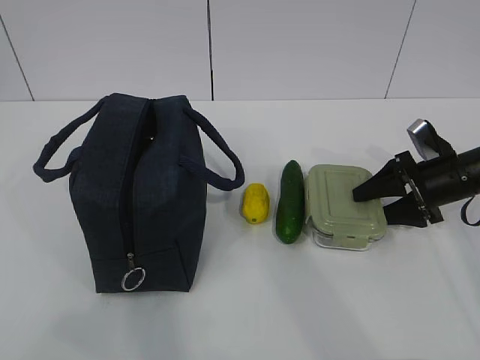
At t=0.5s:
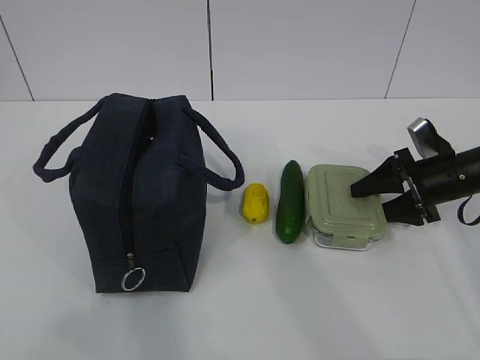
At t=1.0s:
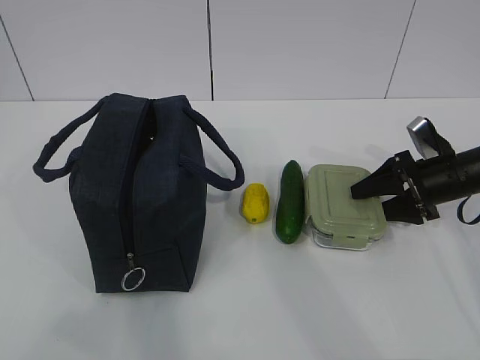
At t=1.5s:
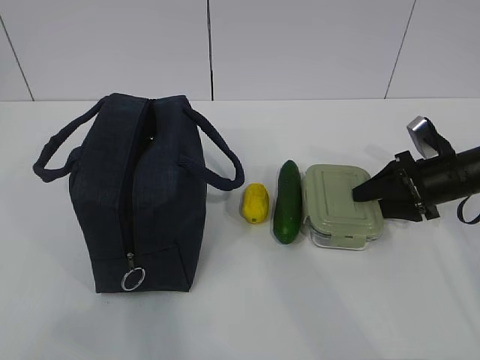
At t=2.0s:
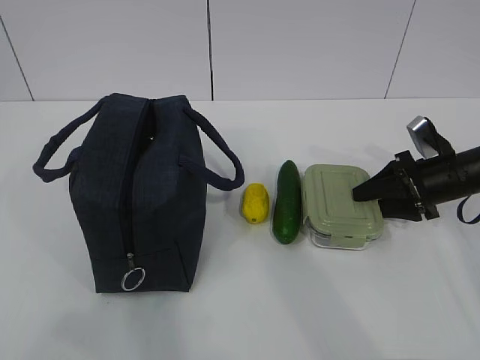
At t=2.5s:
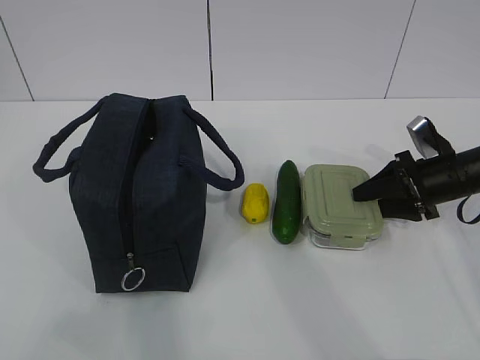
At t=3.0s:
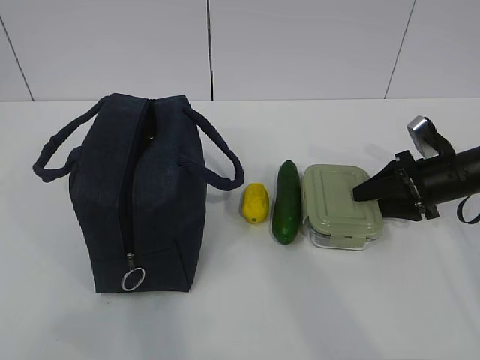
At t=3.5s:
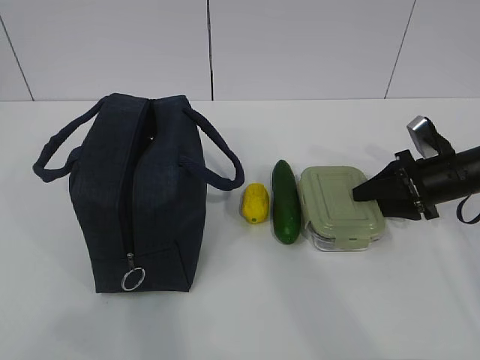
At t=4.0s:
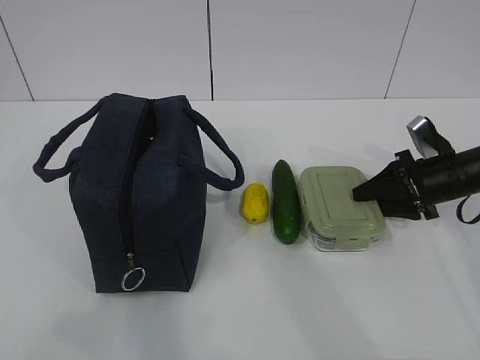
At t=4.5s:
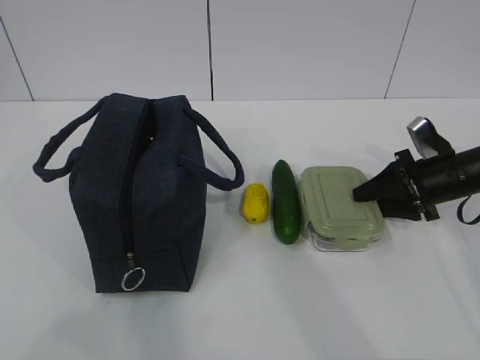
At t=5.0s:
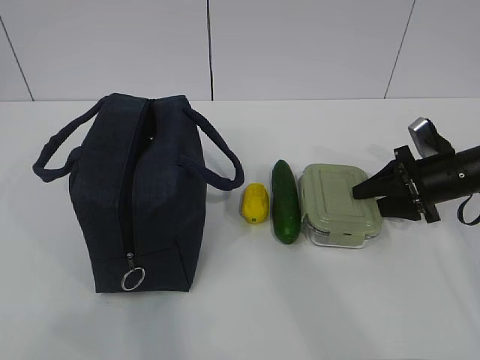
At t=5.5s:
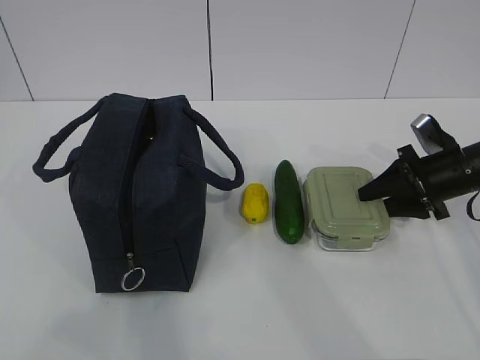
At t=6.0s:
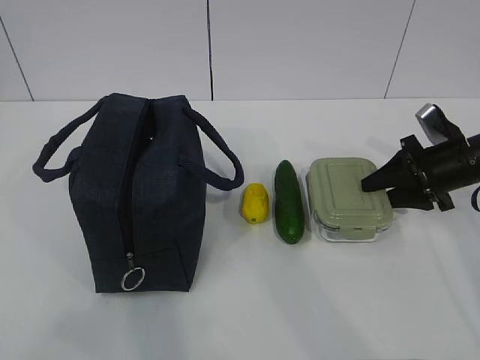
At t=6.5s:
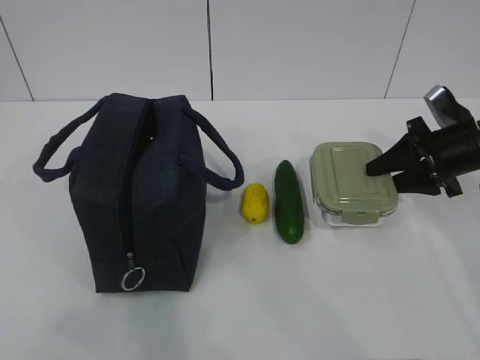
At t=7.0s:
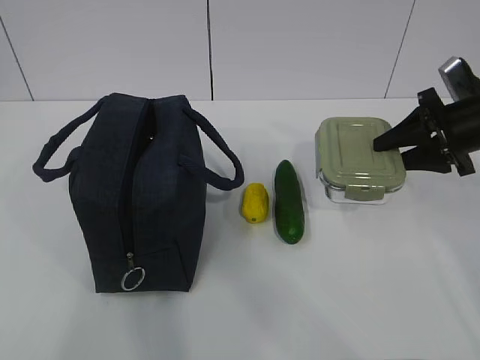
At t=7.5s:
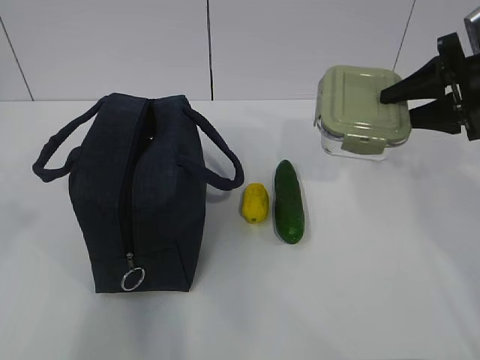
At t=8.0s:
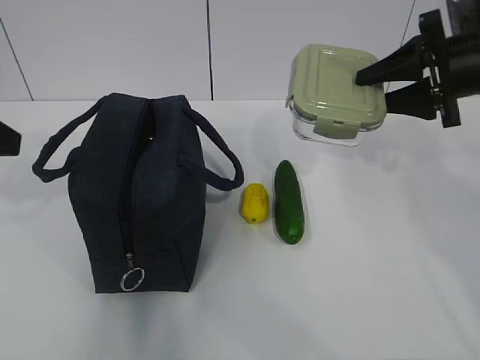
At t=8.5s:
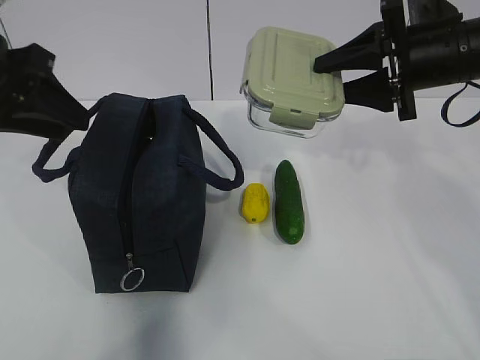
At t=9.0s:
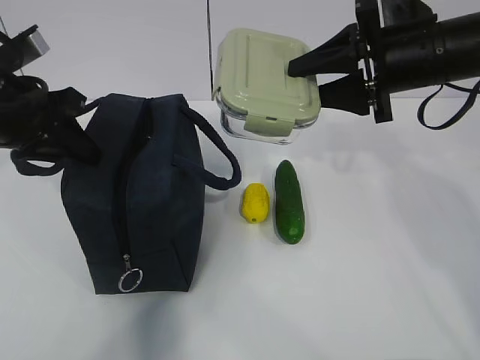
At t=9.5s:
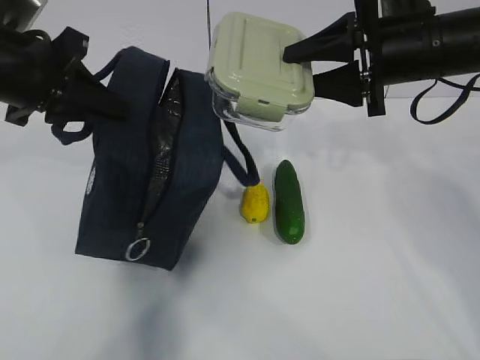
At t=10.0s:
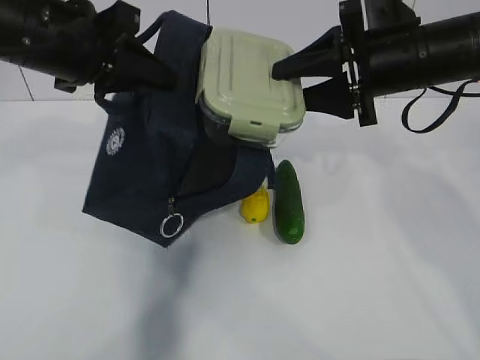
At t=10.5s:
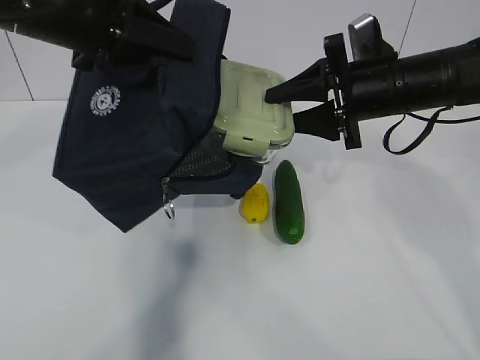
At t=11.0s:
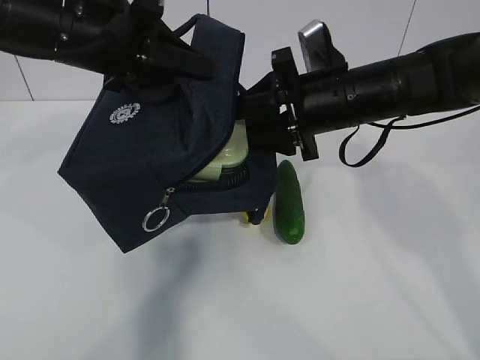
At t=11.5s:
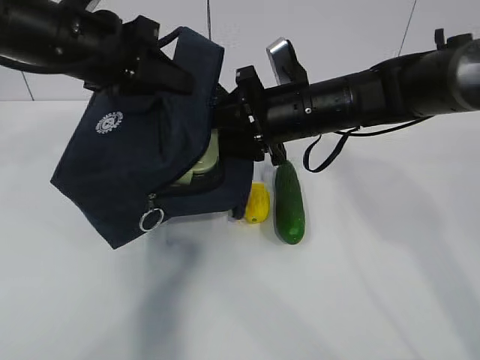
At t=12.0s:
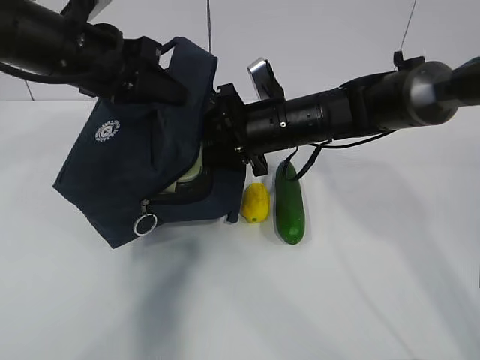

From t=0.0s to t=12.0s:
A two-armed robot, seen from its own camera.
Step, from t=0.0s to t=3.0s: Grab the lunch box with your right hand.
Step, from t=7.0s to t=9.5s: Place it into the bag with your right hand.
From t=0.0s to t=4.0s: The two grippers keep their place.
From t=4.0s to t=6.0s: There are only small adjustments of the grippers.
From t=6.0s to t=8.0s: The left gripper moves forward, approximately 25 cm. Meanwhile the right gripper shifts roughly 15 cm upward.
From t=8.0s to t=10.0s: The right gripper moves to the left, about 10 cm, while the left gripper moves to the right and forward, some 15 cm, and closes its fingers.
From t=10.0s to t=12.0s: The right gripper moves to the left and downward, about 15 cm.

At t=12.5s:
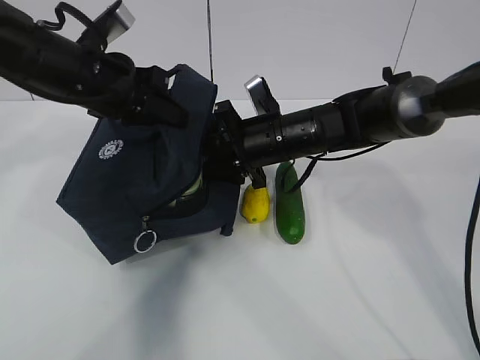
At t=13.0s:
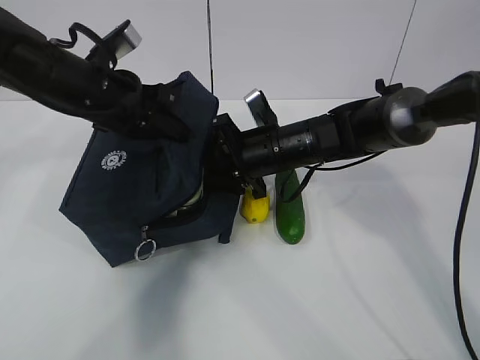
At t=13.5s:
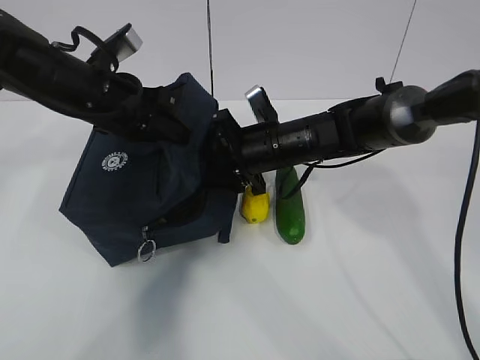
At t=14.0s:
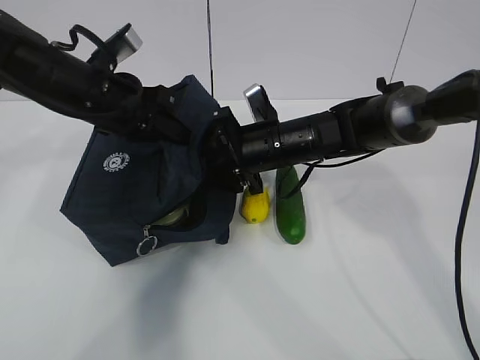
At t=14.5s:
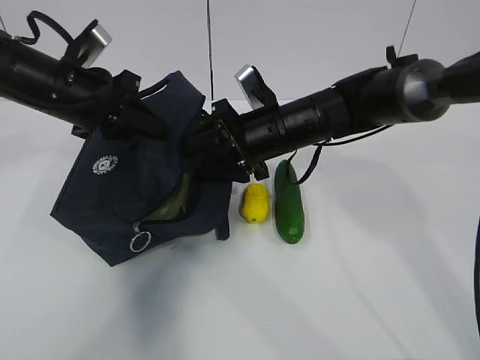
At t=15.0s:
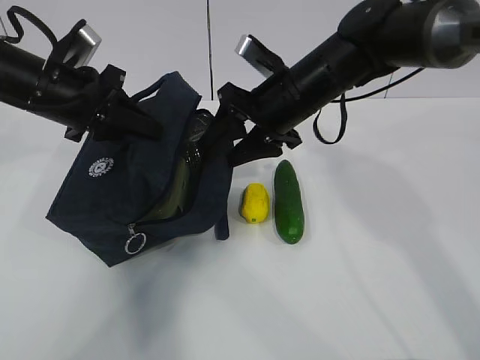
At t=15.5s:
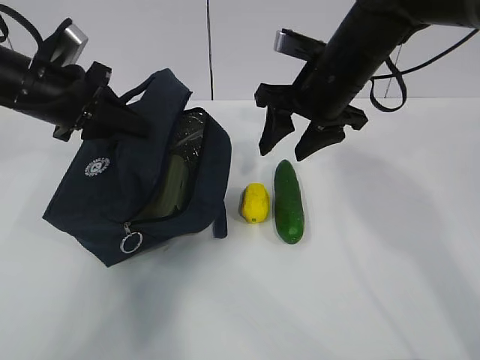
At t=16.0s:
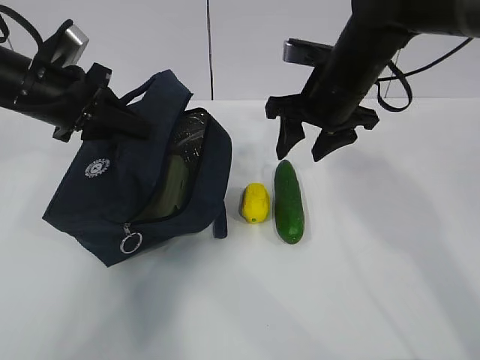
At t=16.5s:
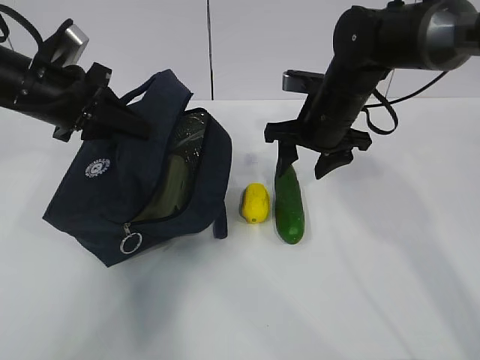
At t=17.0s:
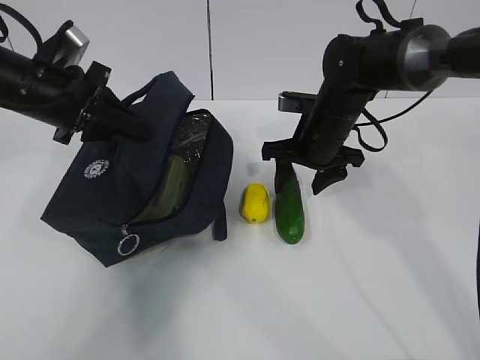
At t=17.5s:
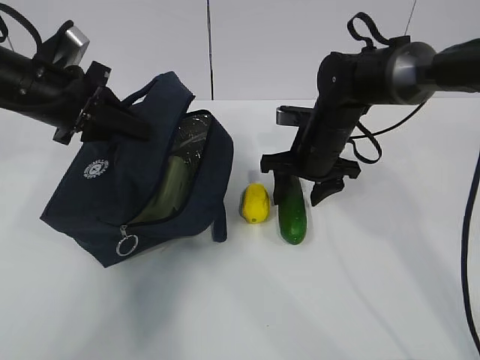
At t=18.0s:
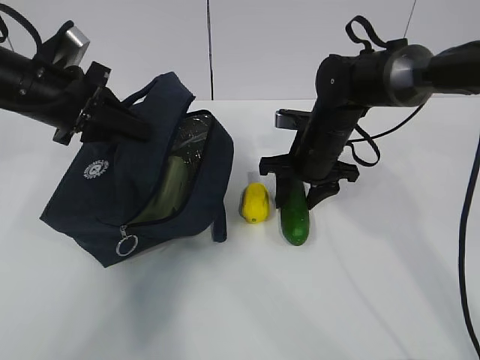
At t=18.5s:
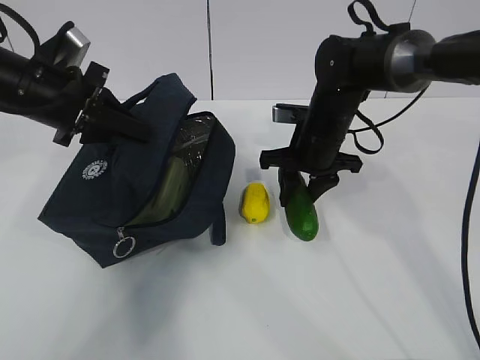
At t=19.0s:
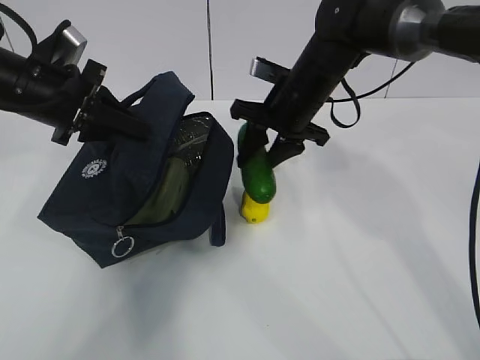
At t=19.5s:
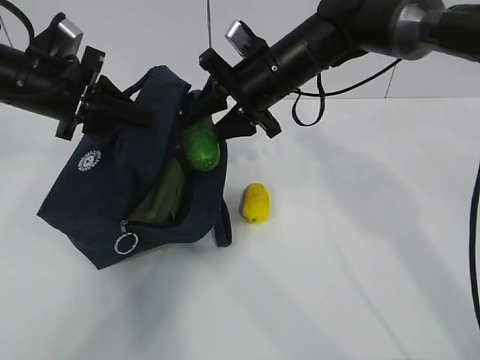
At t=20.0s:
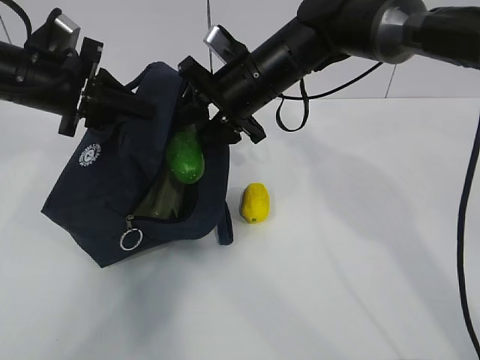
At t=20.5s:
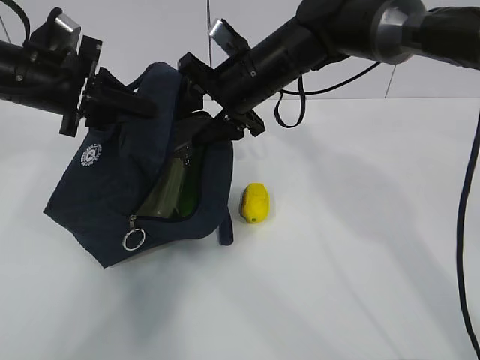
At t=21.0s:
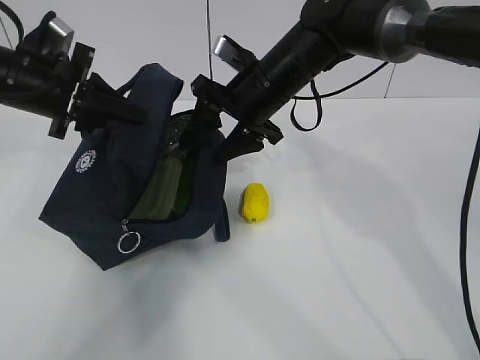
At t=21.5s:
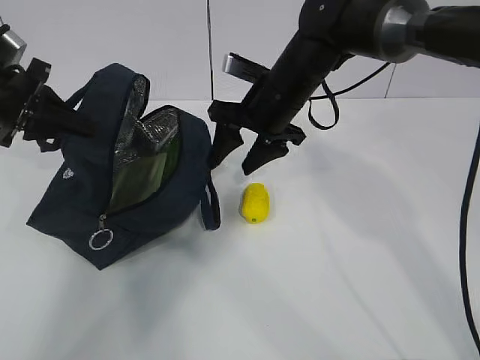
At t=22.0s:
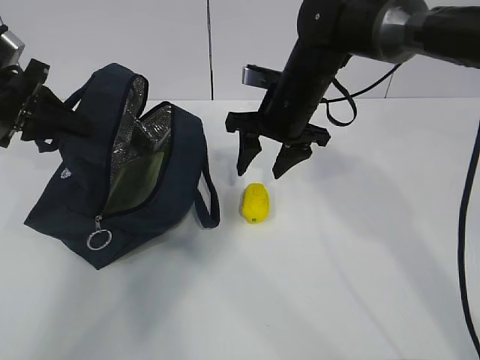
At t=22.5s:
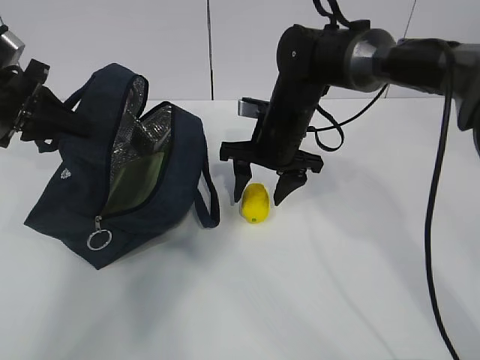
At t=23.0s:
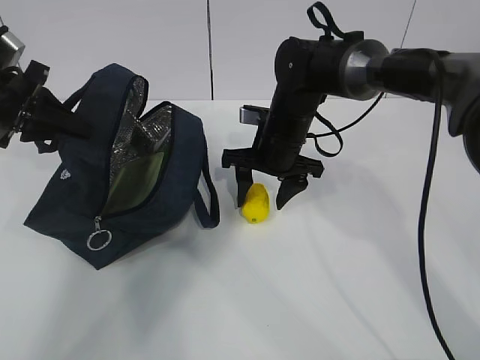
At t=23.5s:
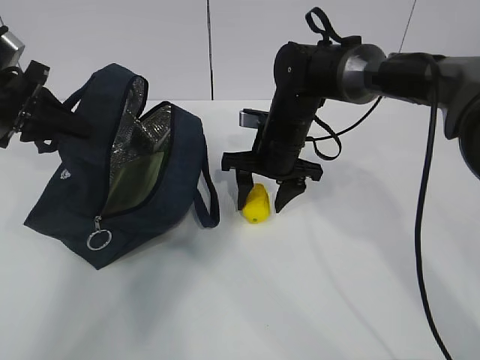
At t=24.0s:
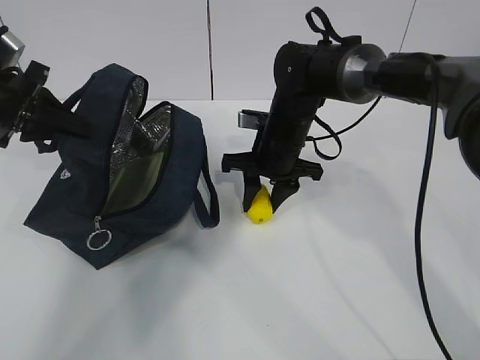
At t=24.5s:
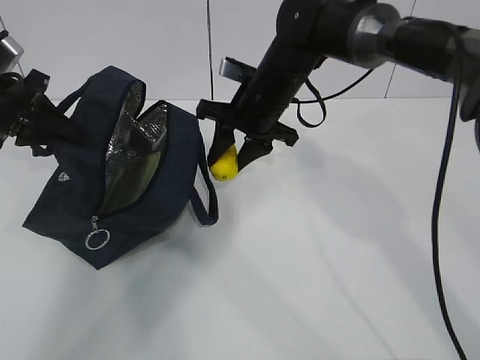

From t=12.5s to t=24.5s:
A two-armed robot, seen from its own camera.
Step, from t=14.0s to t=15.5s: Place it into the bag with your right hand.
Step, from t=16.0s to t=18.0s: Grab the lemon with your right hand.
Step, from t=21.0s to t=22.0s: Grab the lunch bag with your right hand.
From t=12.5s to t=14.5s: The grippers stay close to where they were, moving slightly.
From t=14.5s to t=16.5s: The right gripper shifts about 5 cm to the right, and moves about 10 cm upward and comes back.
From t=16.5s to t=18.5s: The right gripper closes.
From t=18.5s to t=20.5s: The right gripper is displaced upward and to the left by approximately 10 cm.
From t=20.5s to t=22.5s: The right gripper travels downward by roughly 5 cm. The left gripper travels to the left by about 5 cm.
From t=22.5s to t=24.5s: The right gripper closes.

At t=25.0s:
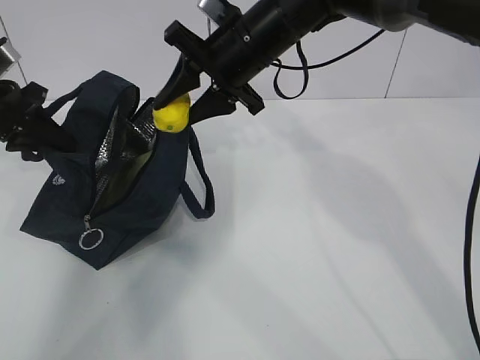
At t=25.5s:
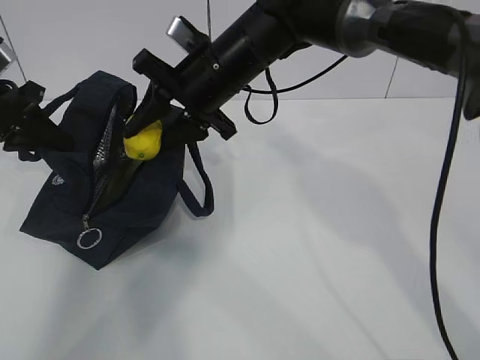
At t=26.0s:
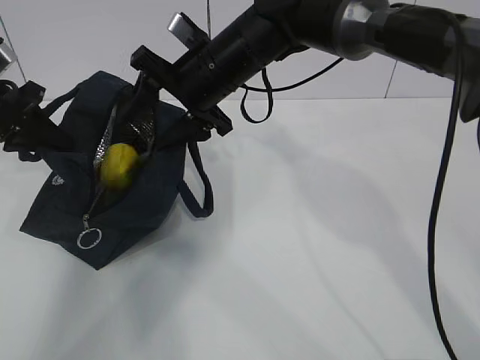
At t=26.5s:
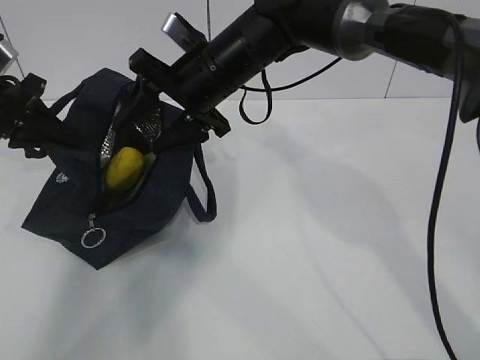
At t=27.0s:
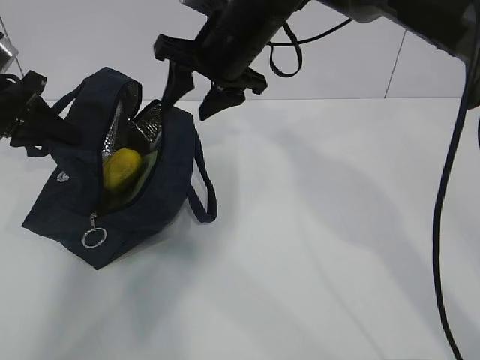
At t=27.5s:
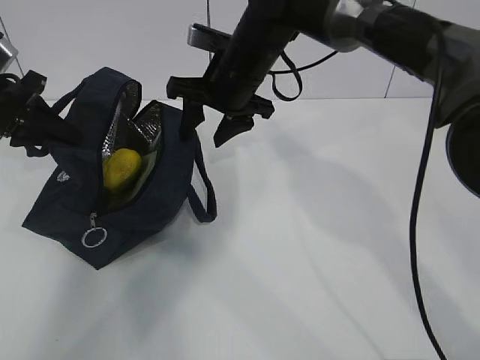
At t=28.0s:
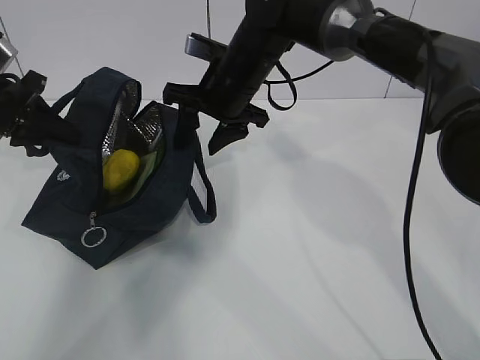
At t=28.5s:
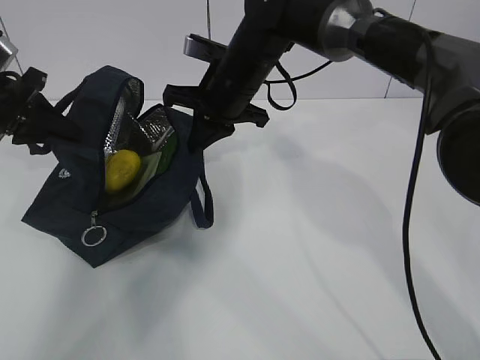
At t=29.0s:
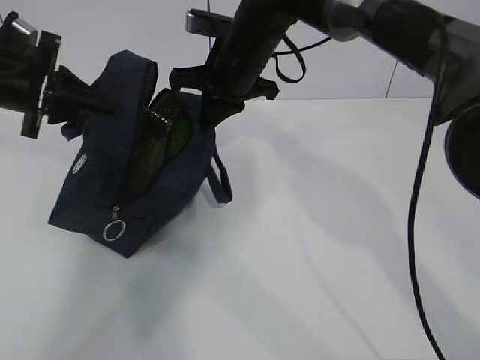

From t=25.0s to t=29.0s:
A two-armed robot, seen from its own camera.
From t=25.0s to t=27.0s: The grippers move only a little.
From t=27.0s to t=29.0s: The right gripper closes up.
